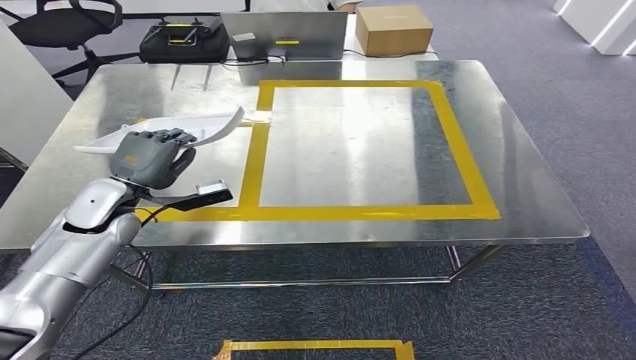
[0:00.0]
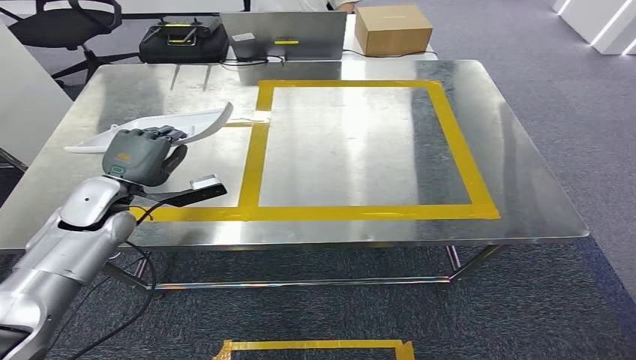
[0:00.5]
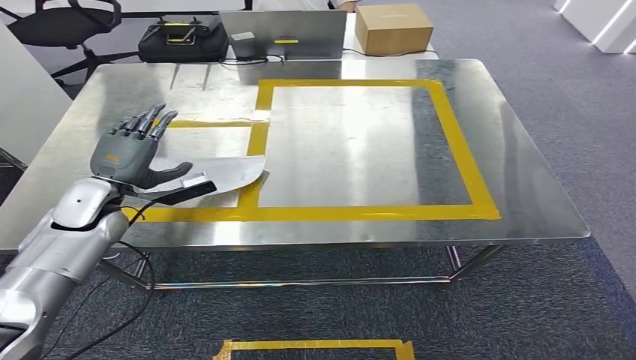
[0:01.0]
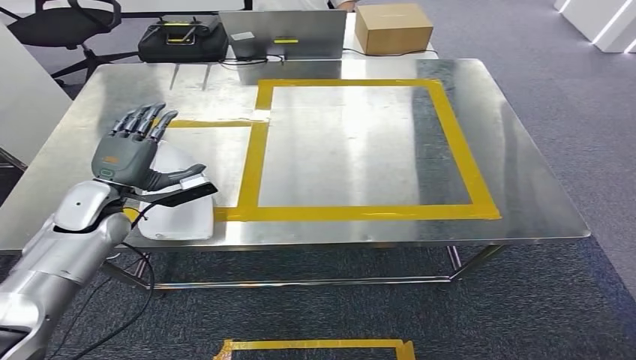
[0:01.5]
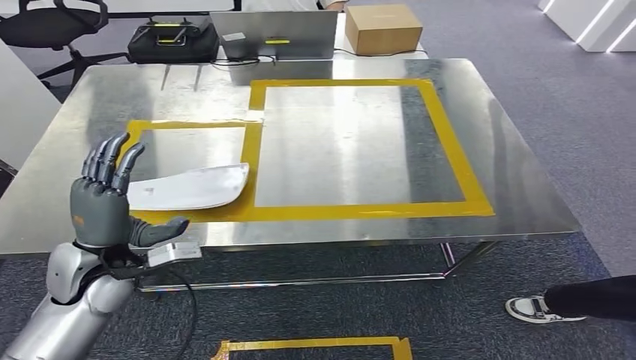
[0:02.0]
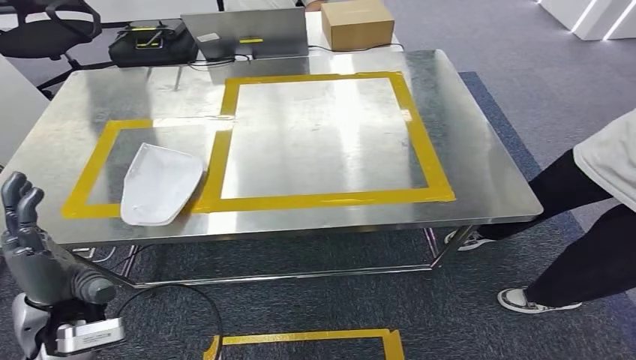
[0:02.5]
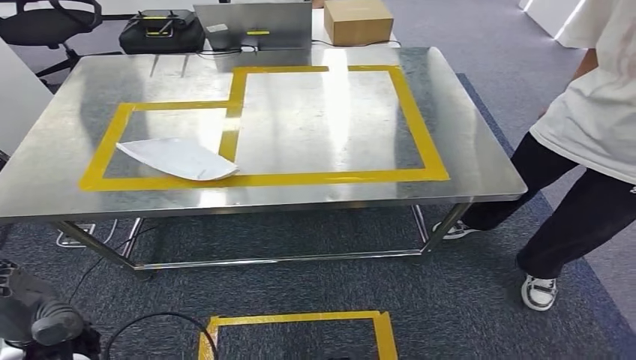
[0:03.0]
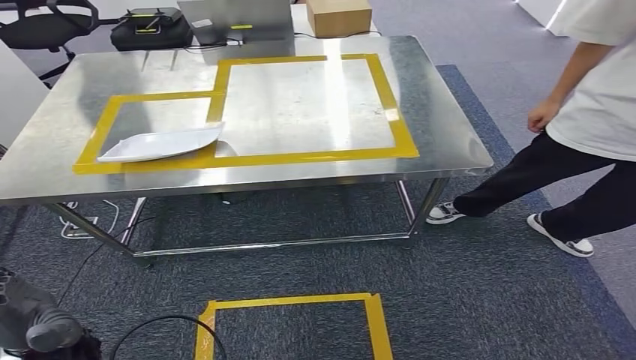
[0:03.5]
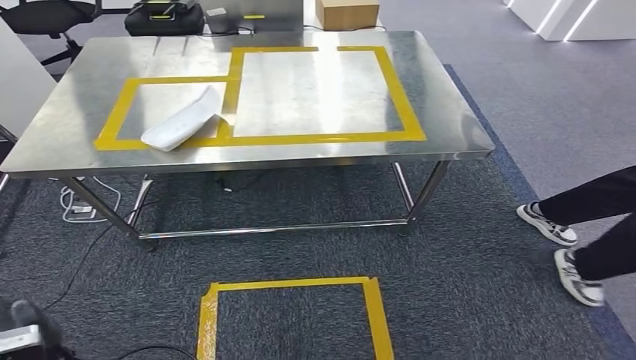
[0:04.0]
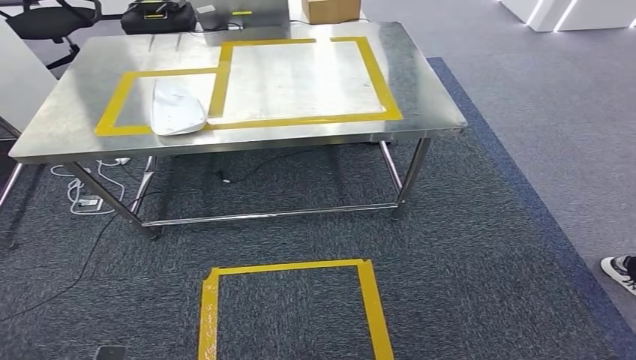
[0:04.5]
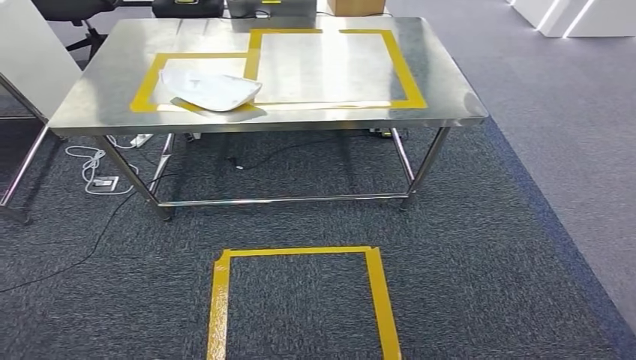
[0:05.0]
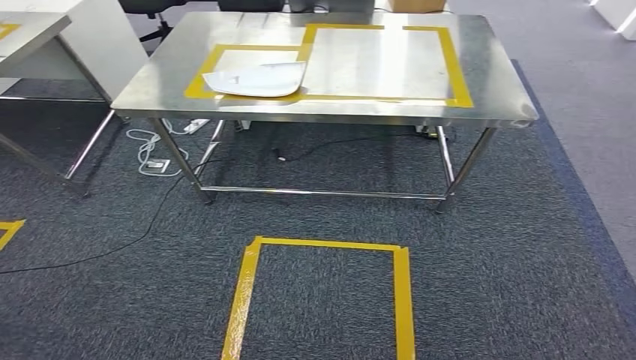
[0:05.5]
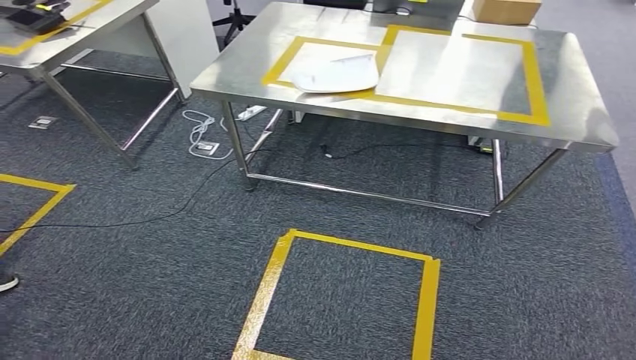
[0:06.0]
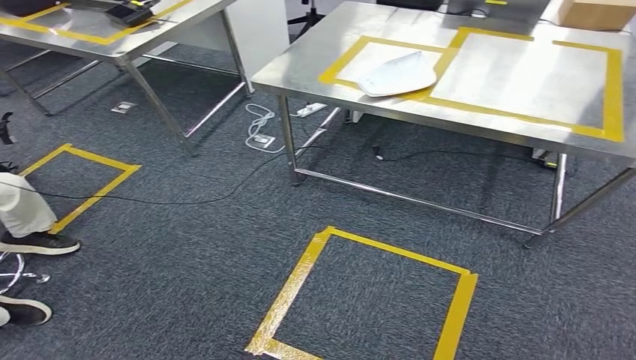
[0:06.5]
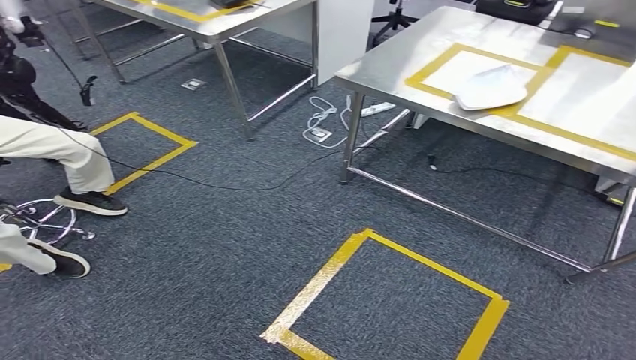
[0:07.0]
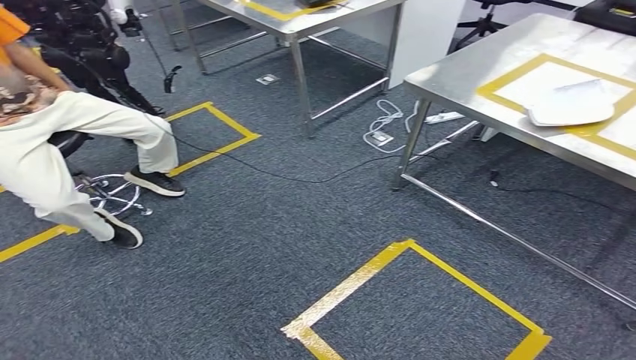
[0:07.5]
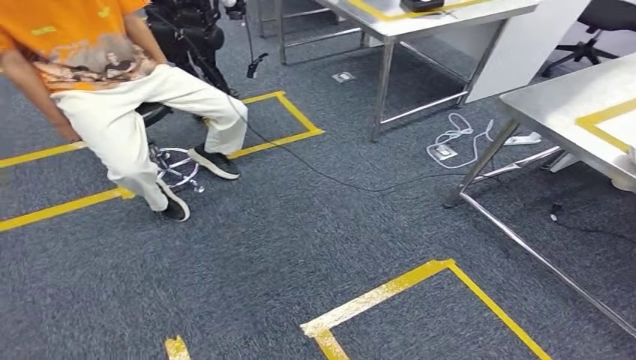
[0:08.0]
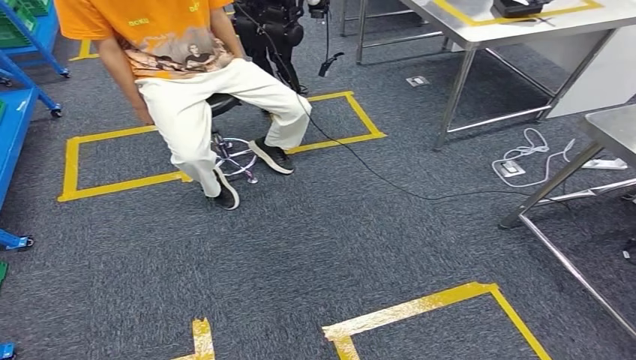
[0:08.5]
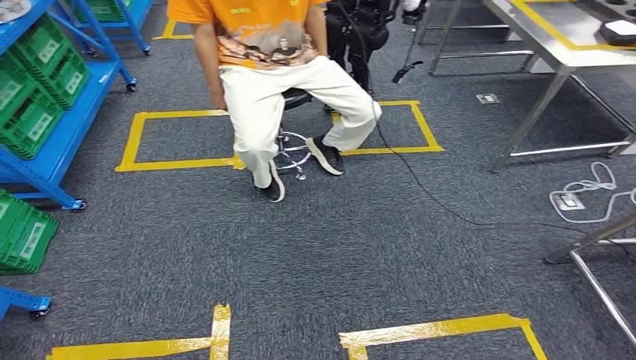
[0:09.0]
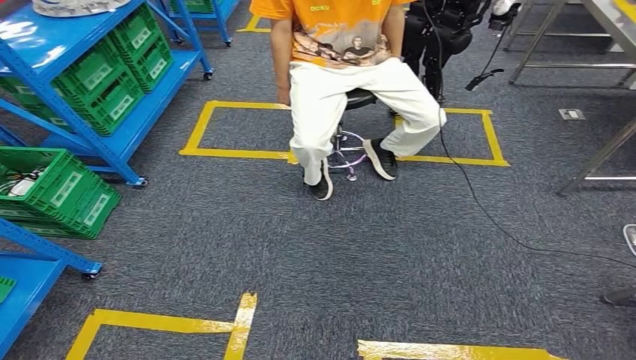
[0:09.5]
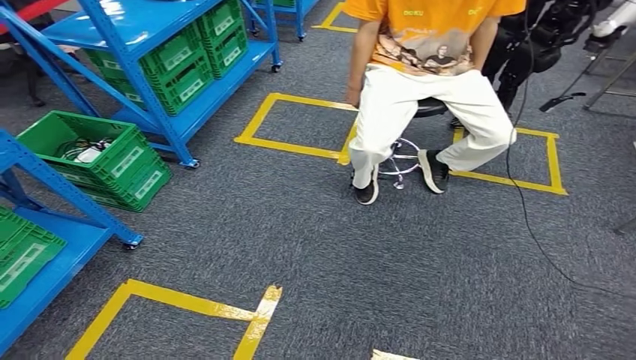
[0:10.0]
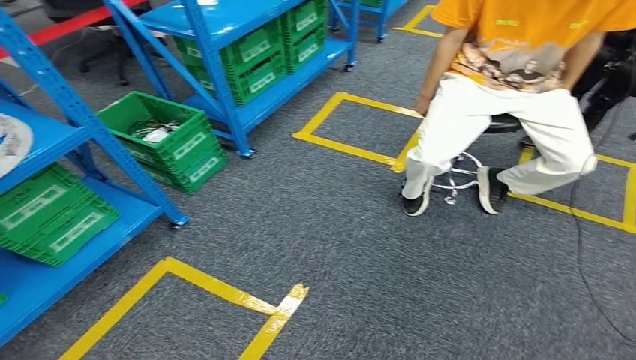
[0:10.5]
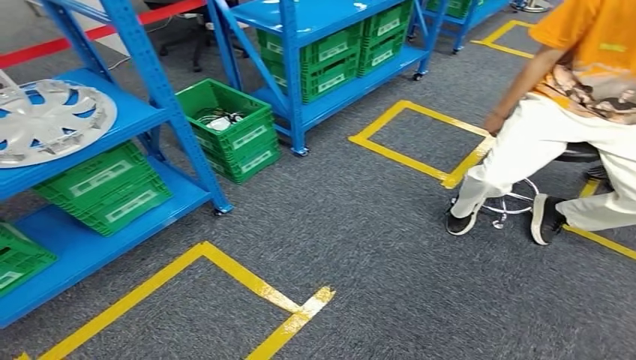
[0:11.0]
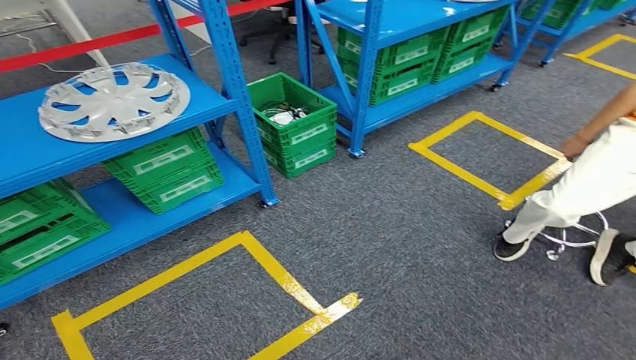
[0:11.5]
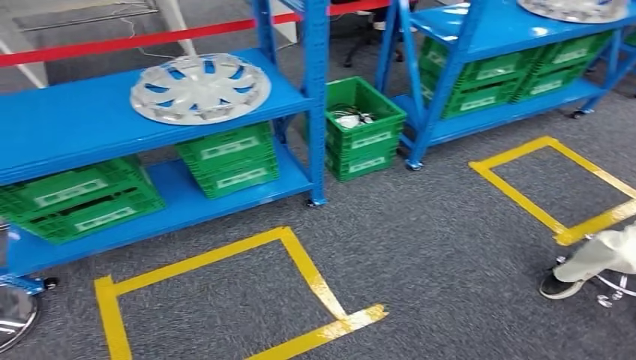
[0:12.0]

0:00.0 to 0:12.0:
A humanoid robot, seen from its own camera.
Step, 0:00.0 to 0:02.5: Insert the small parts into the corresponding holes on the workbench.

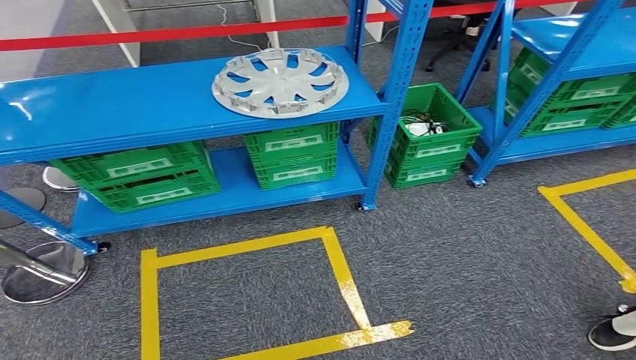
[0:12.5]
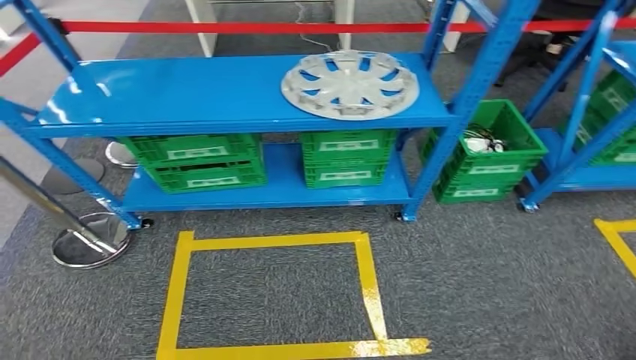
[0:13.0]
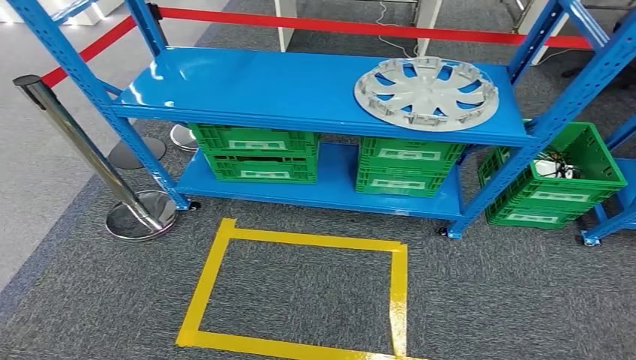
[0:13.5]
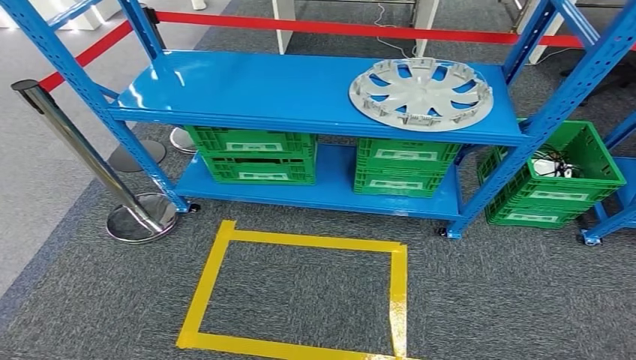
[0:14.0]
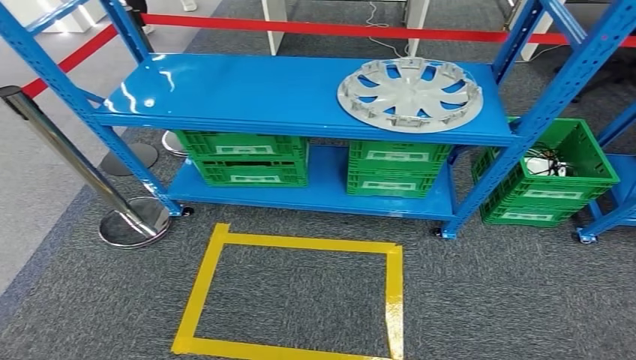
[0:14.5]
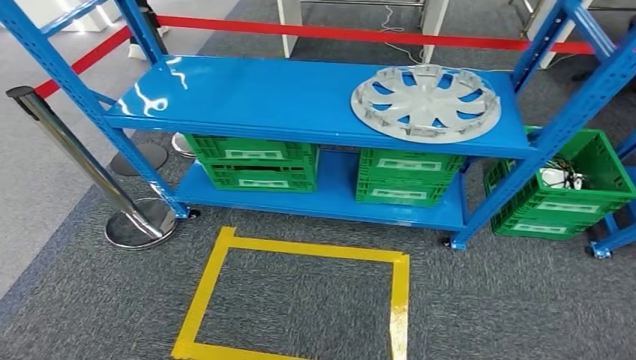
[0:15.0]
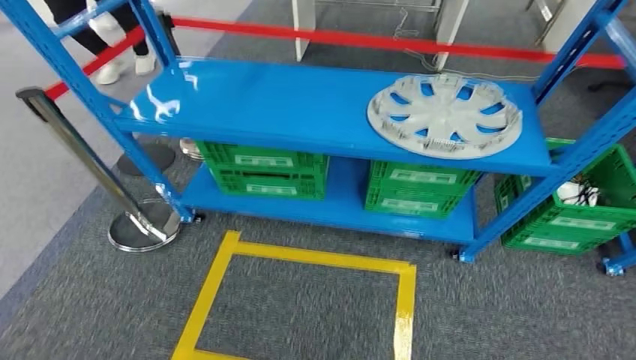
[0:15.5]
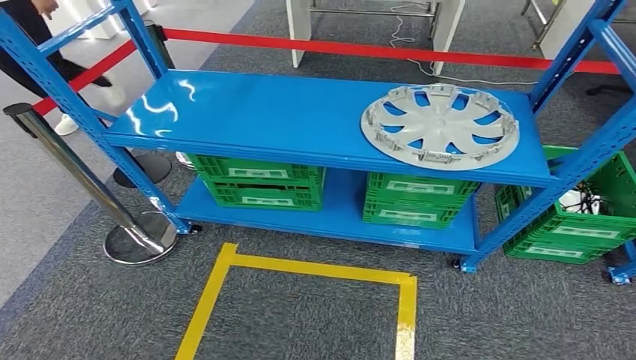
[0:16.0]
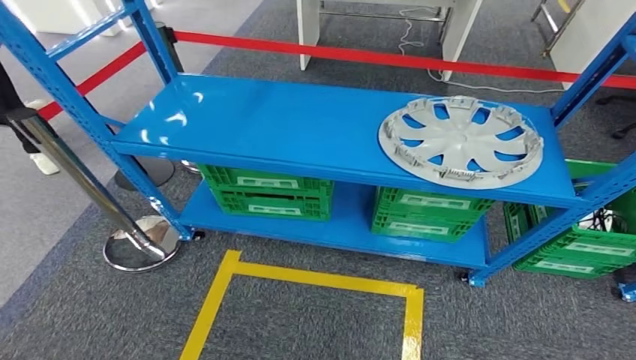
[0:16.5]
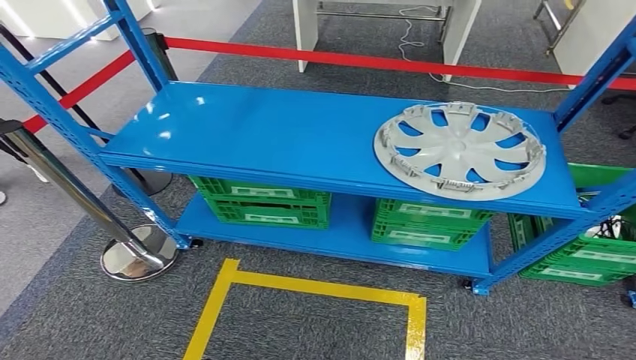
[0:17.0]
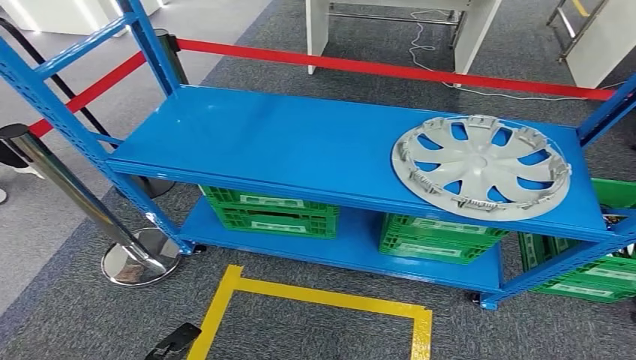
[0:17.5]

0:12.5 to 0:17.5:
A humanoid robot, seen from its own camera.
Step, 0:12.5 to 0:17.5: Move to the initial position of the workbench.

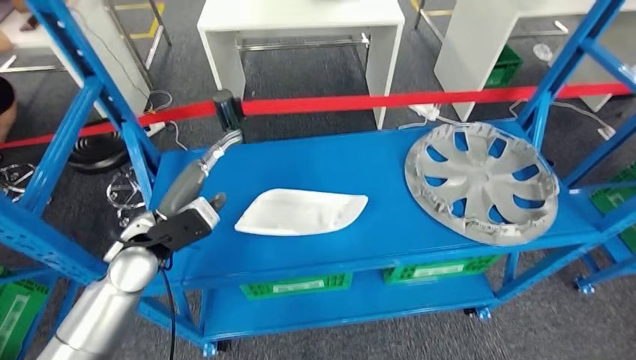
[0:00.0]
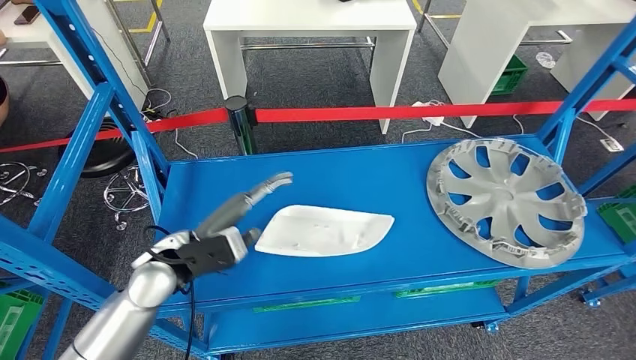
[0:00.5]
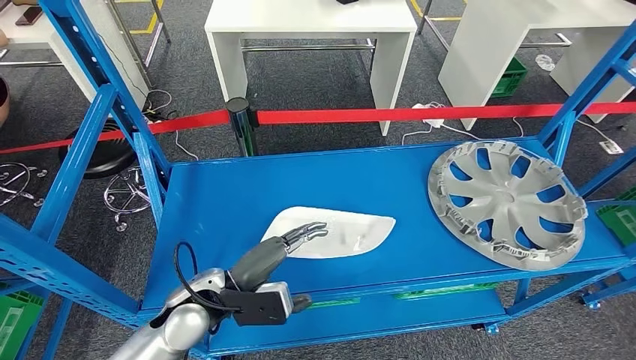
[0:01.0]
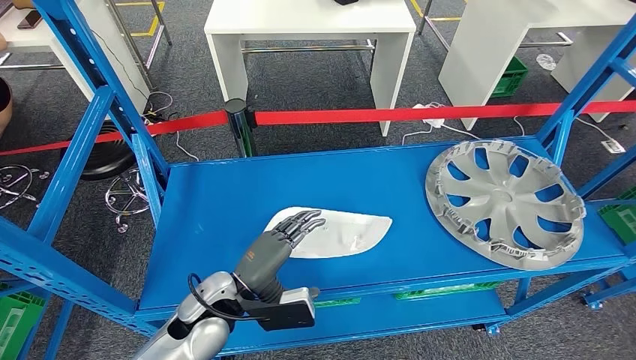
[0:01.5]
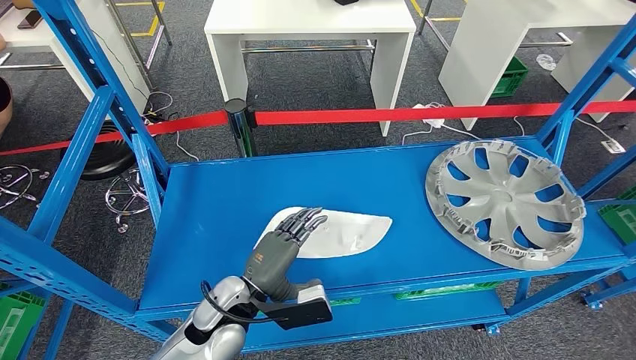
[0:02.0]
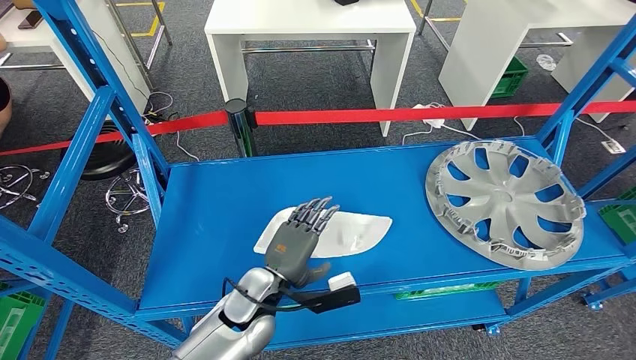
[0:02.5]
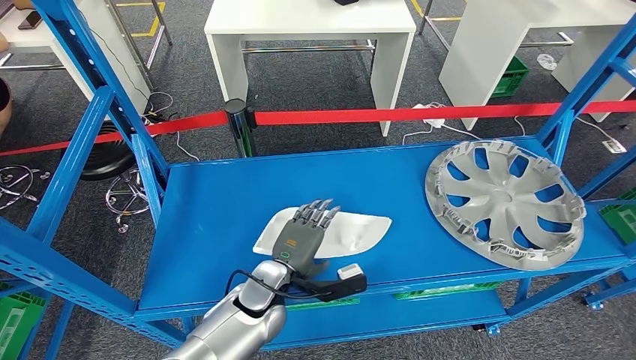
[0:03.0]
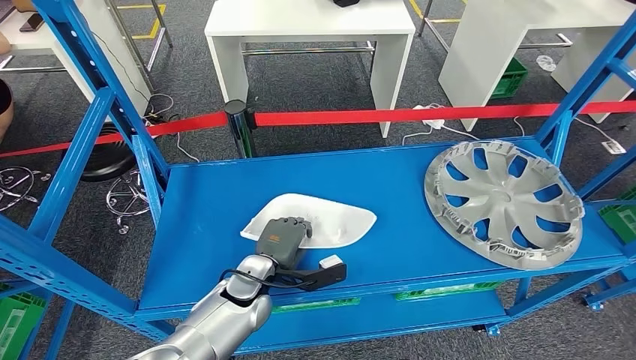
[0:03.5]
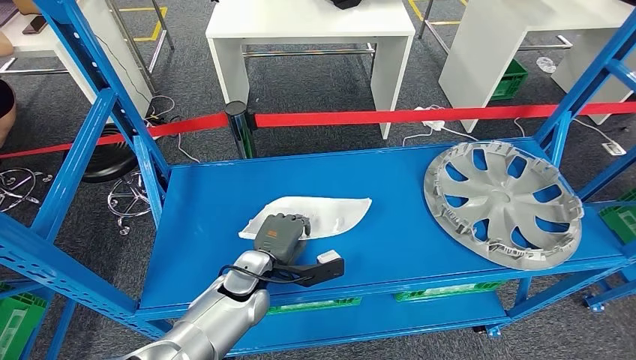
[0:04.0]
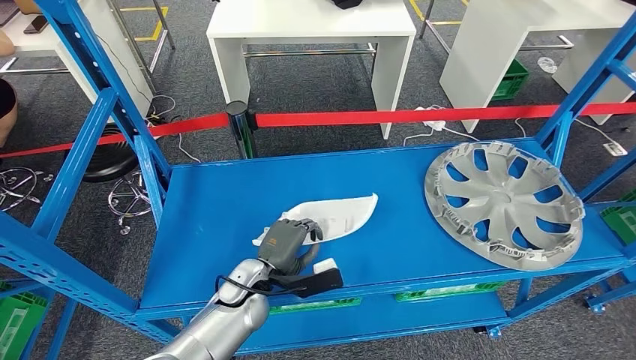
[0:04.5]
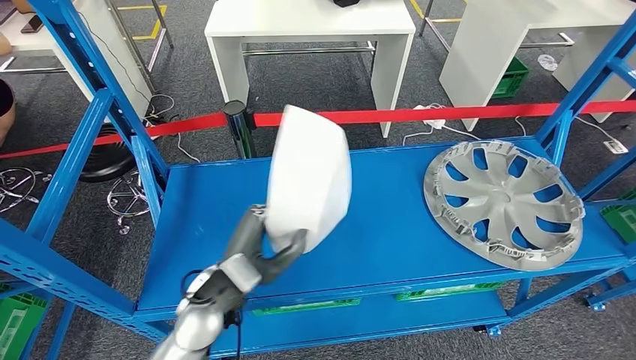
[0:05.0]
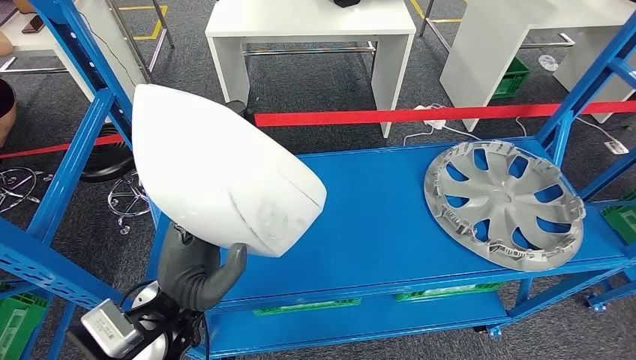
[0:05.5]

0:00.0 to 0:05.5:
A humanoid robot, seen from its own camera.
0:02.0 to 0:03.5: The left hand travels forward by roughly 5 cm.
